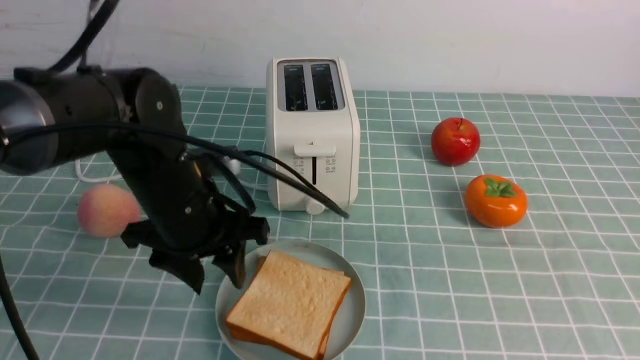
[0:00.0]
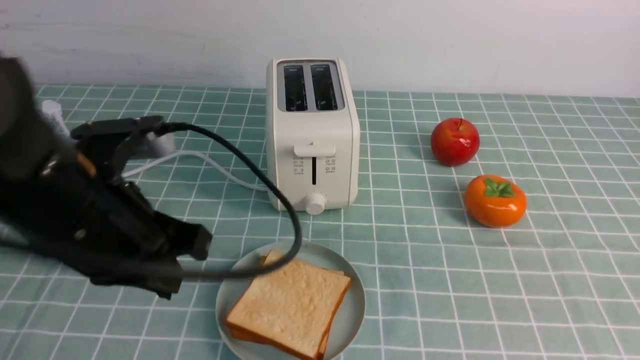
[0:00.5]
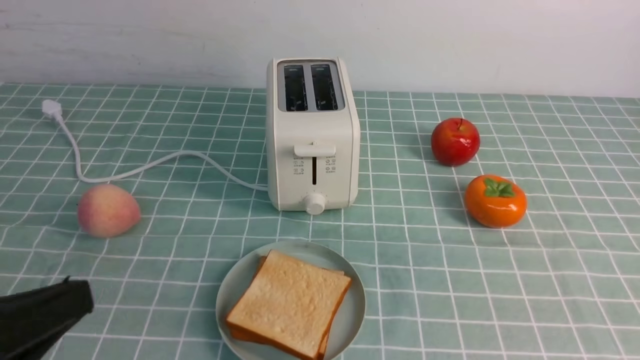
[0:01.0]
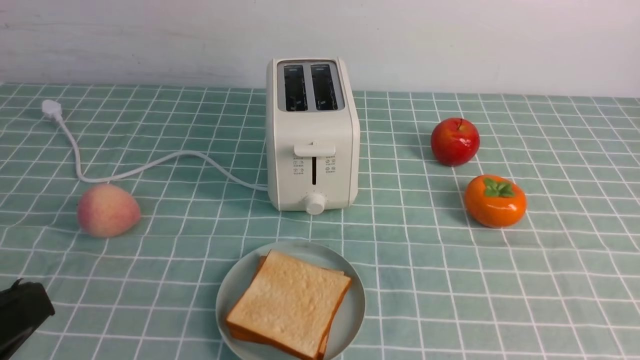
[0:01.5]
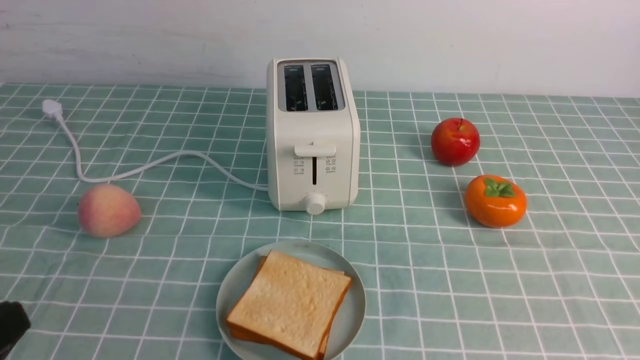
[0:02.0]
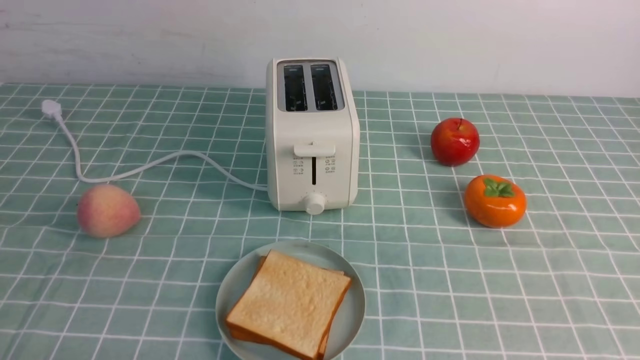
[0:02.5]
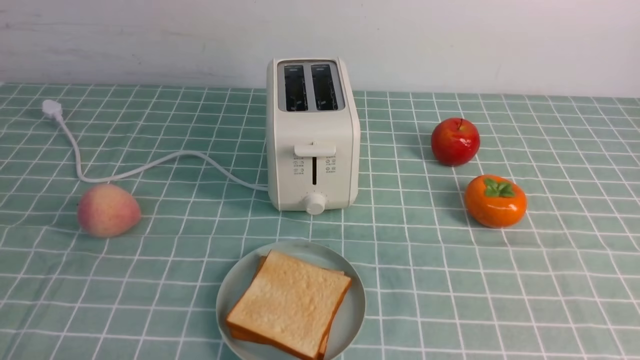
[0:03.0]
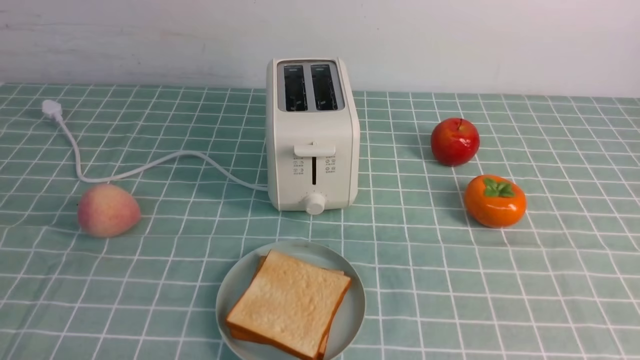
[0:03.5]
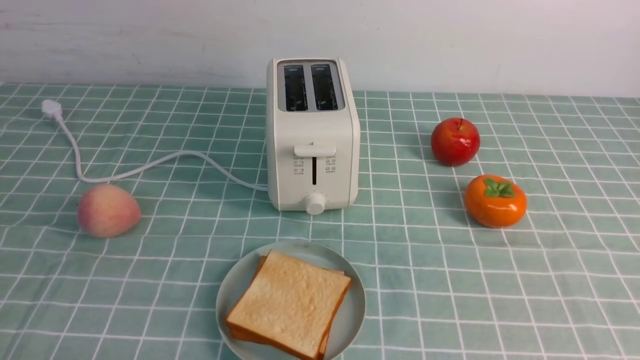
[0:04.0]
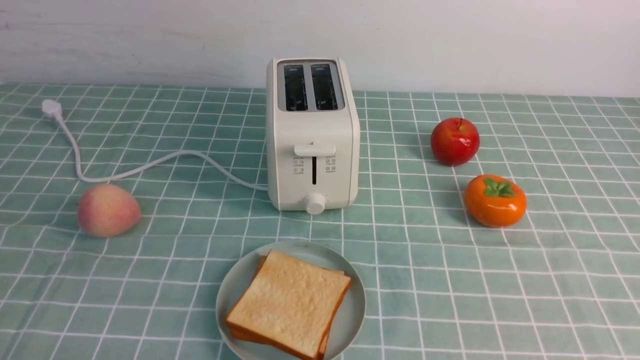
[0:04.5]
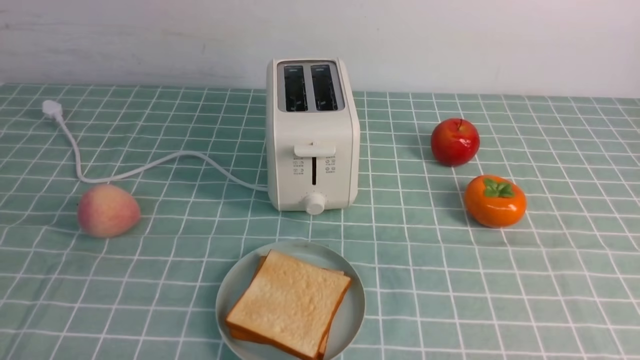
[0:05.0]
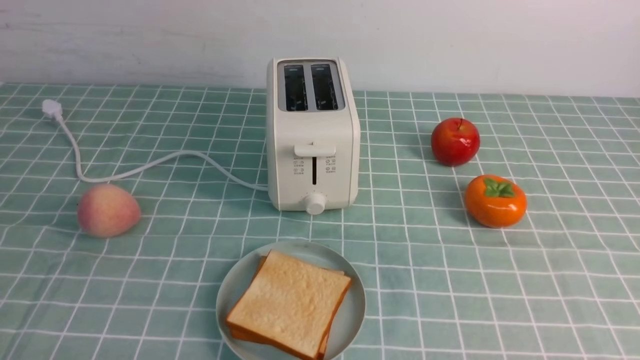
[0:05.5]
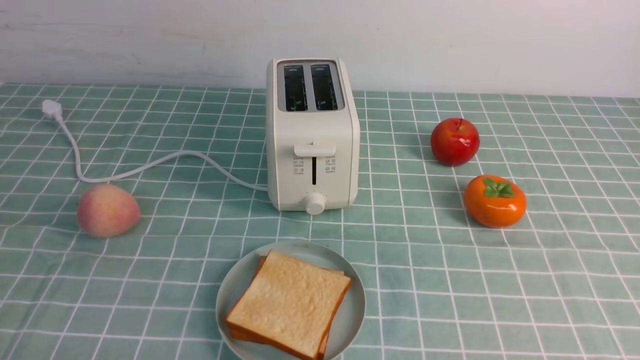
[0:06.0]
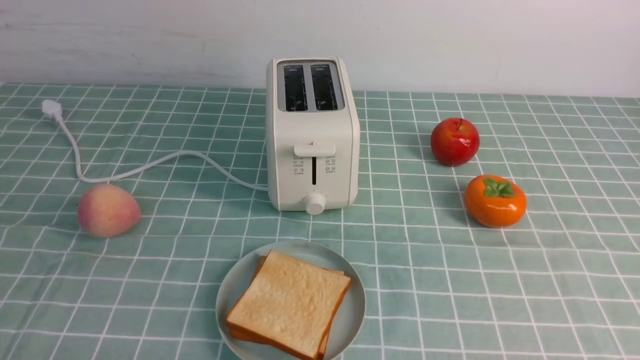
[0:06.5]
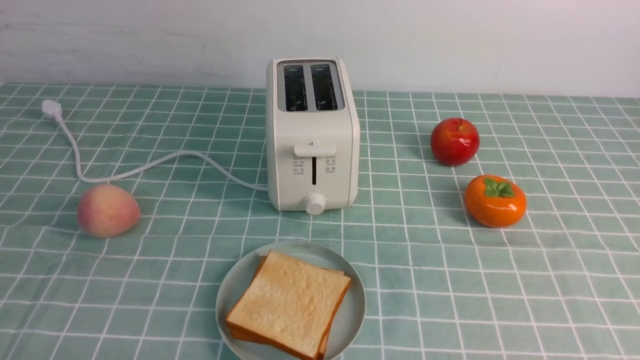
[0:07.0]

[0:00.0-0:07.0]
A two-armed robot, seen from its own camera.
Task of the whole recording: take toasted bread from bread machine on blue coffee table place on plate.
0:00.0 to 0:02.0: The left gripper heads backward and to the left, covering approximately 30 cm, and closes, while the right gripper goes some 10 cm backward, downward and to the right.
